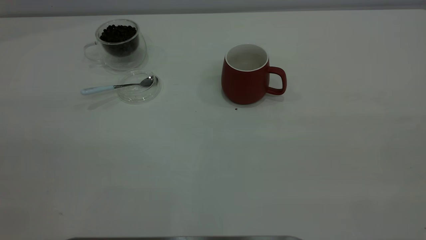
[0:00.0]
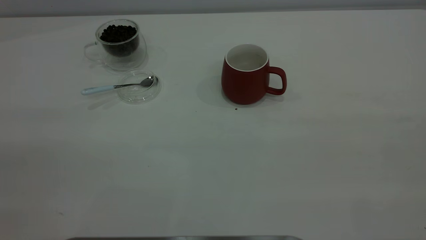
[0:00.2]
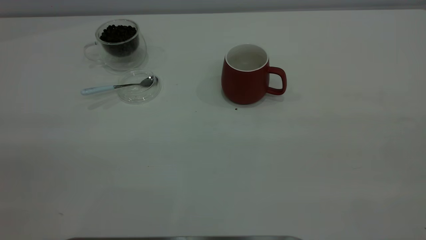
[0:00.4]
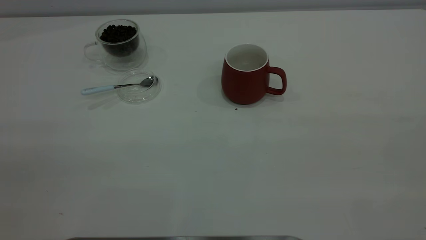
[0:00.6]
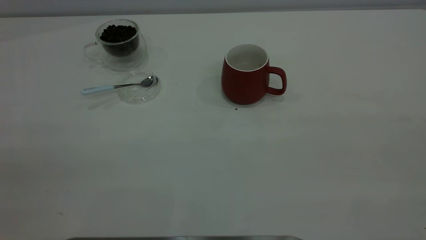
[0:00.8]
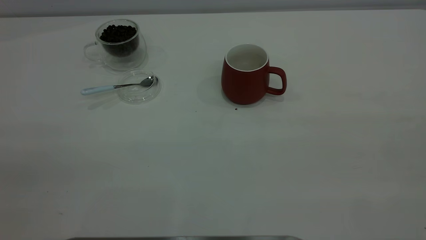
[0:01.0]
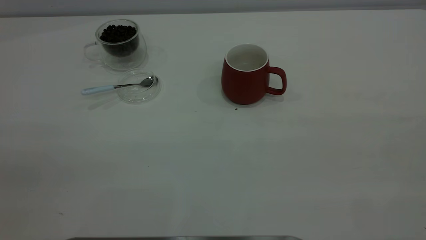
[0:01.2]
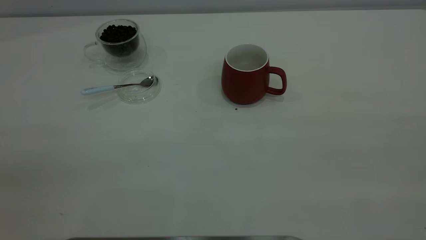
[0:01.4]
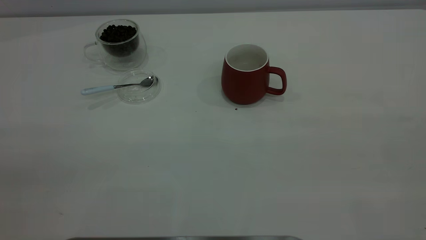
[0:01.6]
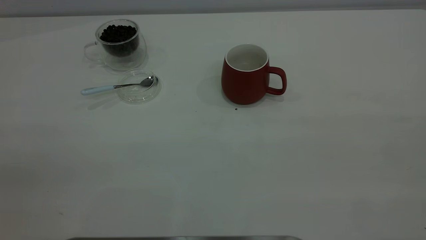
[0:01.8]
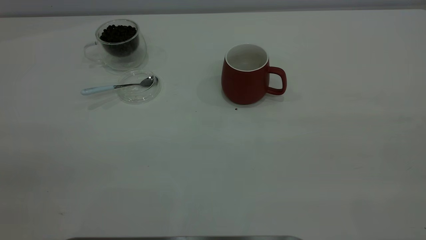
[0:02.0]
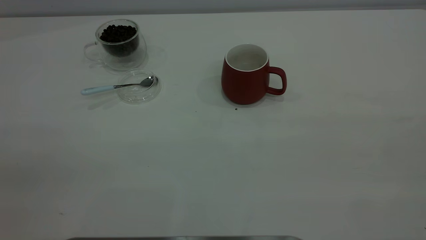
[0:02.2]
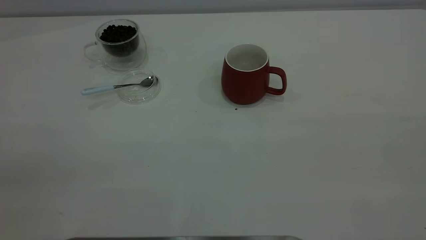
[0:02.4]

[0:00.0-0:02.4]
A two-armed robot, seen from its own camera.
Task of the whole recording: the right gripper place the red cup in the center of the table, the left gripper take the blue spoon from the cup lid and scoop out the coffee beans from the coffee cup and put them into the red cup, the left gripper put the spoon back into the cup lid.
0:01.2 to 0:02.4: Both grippers stay about where they are.

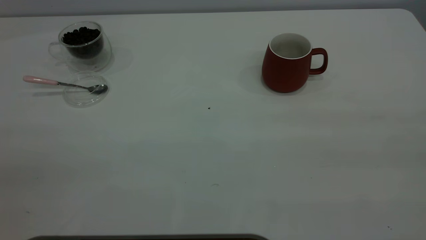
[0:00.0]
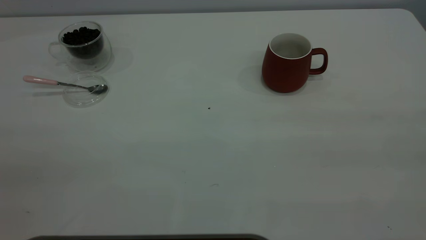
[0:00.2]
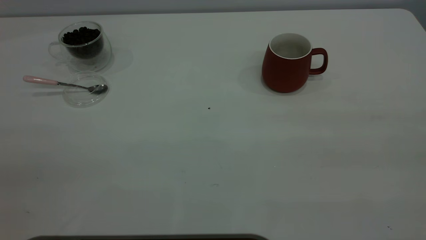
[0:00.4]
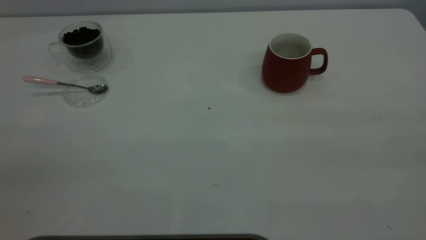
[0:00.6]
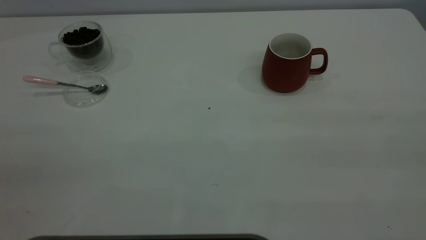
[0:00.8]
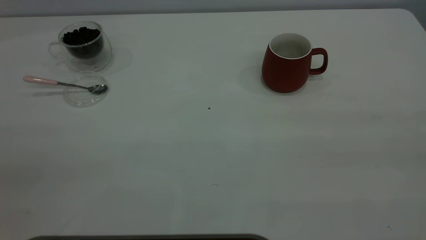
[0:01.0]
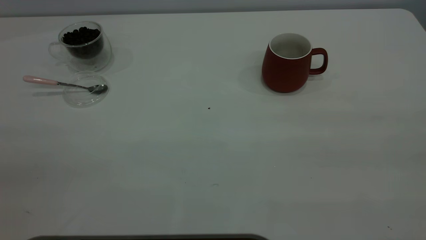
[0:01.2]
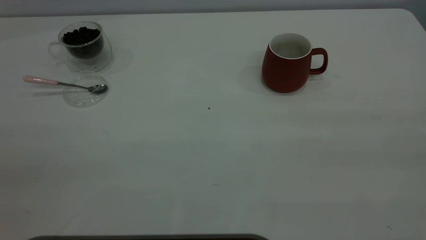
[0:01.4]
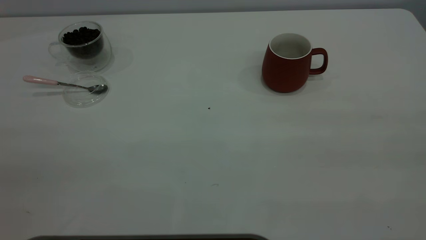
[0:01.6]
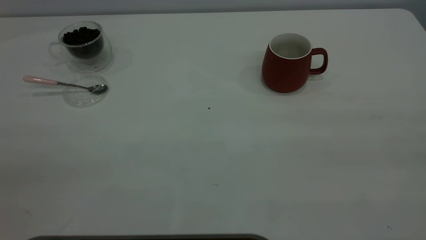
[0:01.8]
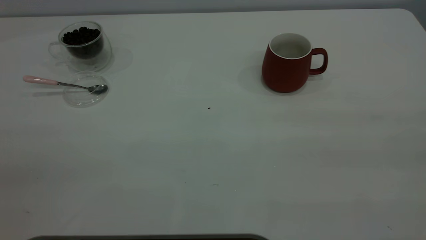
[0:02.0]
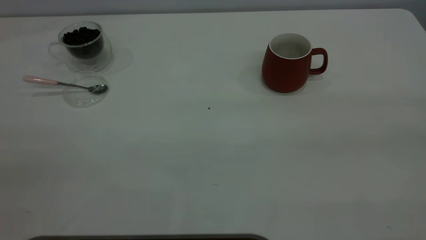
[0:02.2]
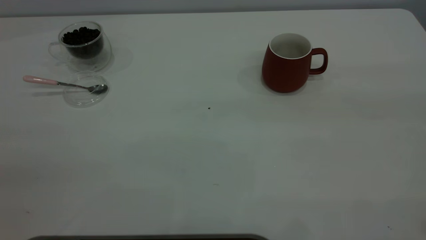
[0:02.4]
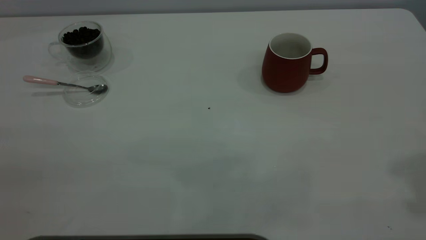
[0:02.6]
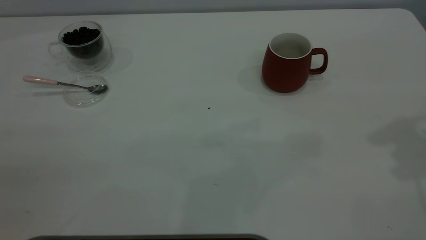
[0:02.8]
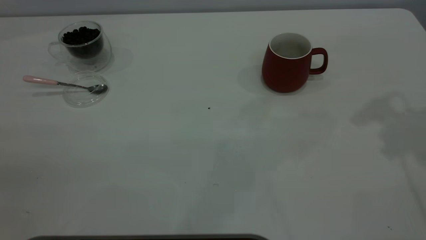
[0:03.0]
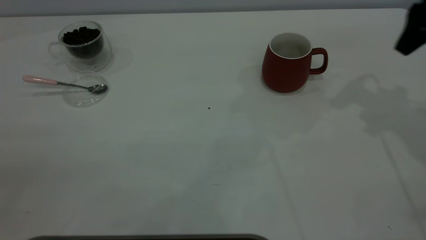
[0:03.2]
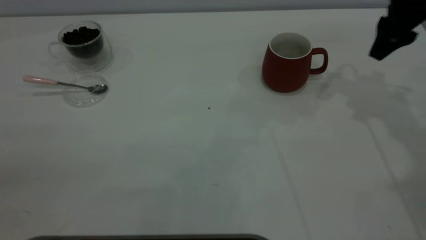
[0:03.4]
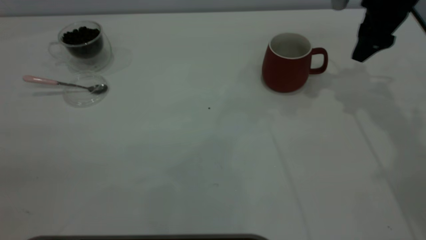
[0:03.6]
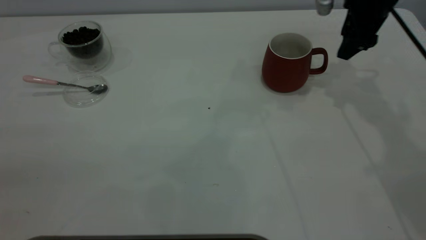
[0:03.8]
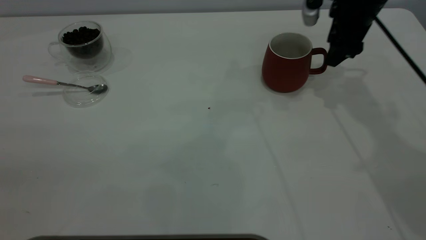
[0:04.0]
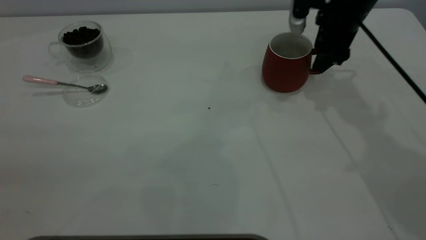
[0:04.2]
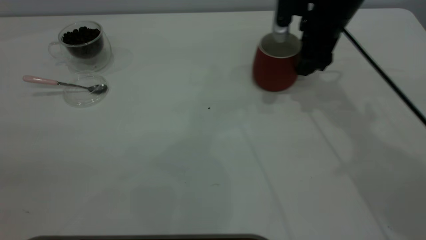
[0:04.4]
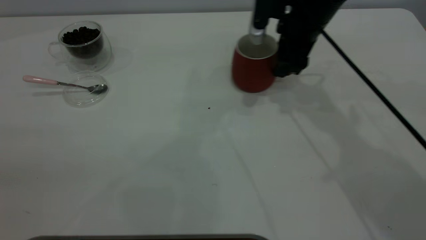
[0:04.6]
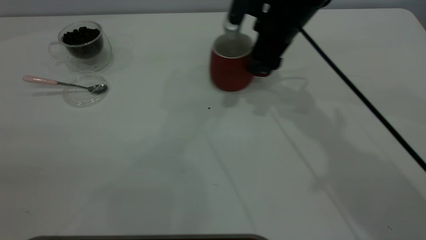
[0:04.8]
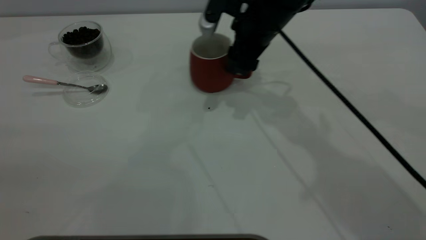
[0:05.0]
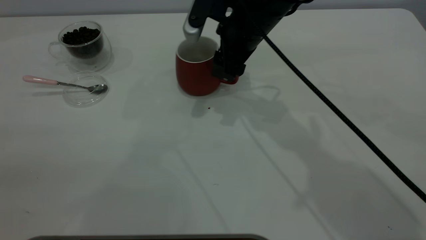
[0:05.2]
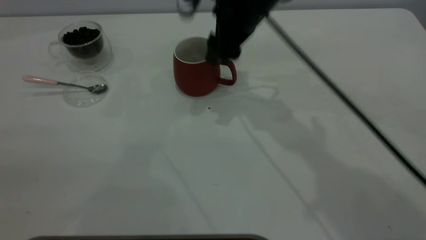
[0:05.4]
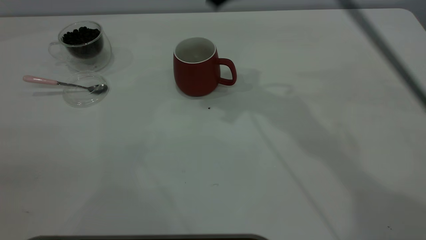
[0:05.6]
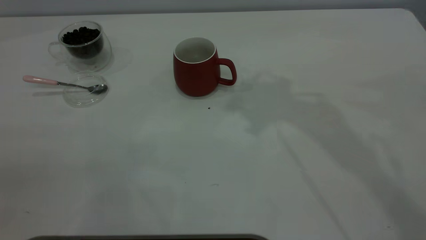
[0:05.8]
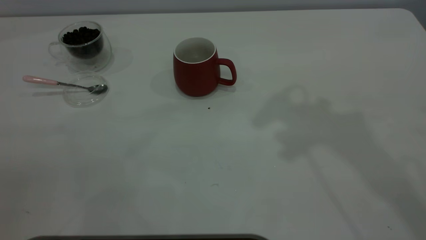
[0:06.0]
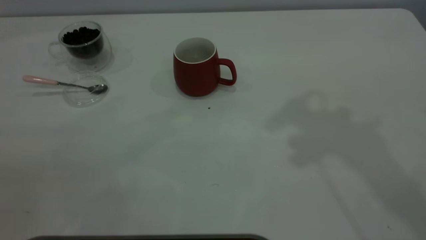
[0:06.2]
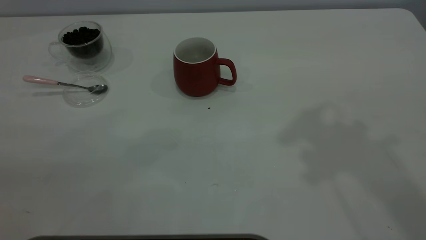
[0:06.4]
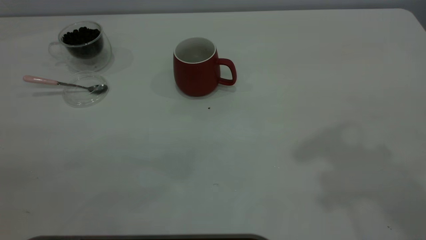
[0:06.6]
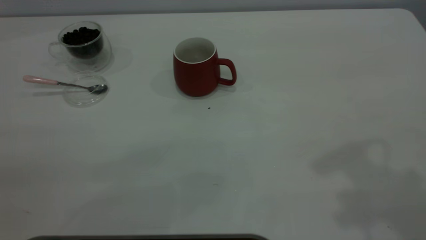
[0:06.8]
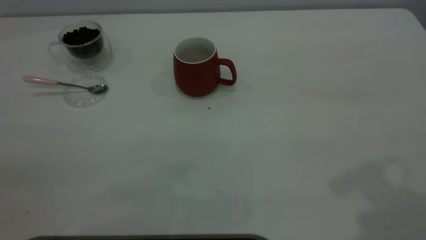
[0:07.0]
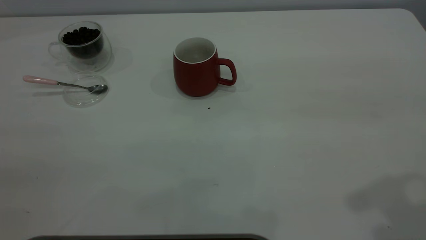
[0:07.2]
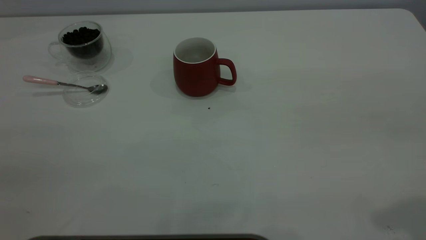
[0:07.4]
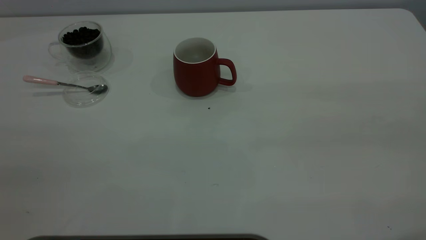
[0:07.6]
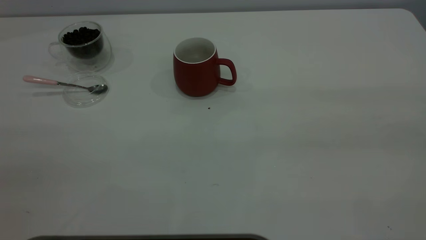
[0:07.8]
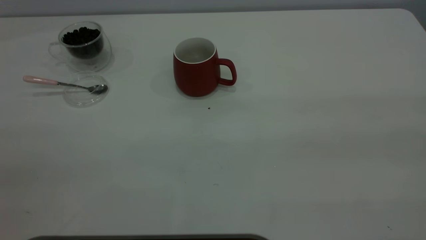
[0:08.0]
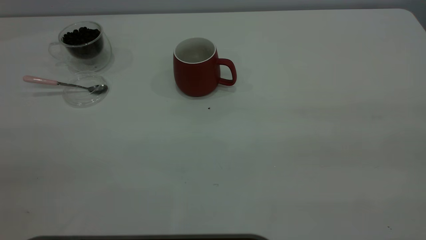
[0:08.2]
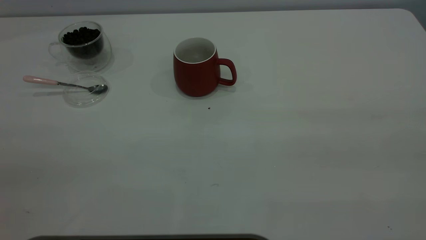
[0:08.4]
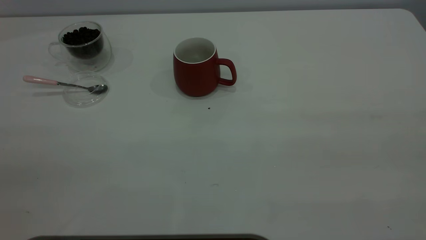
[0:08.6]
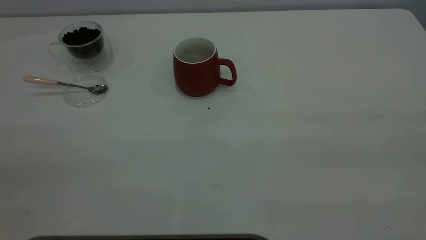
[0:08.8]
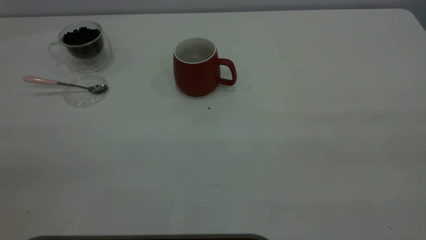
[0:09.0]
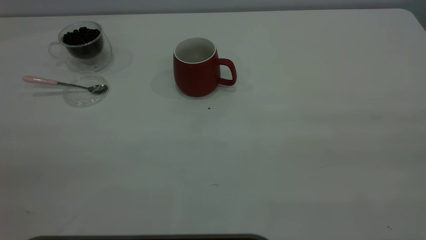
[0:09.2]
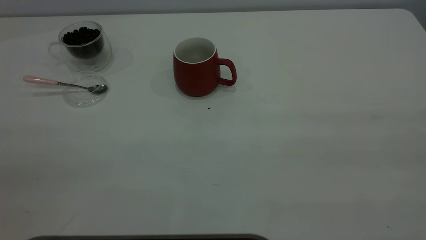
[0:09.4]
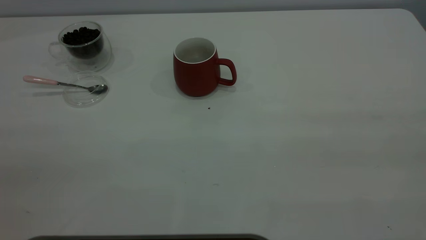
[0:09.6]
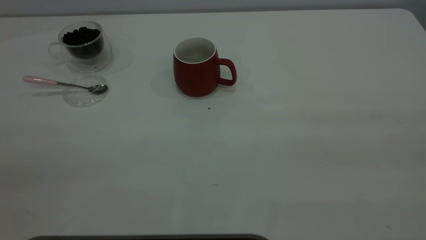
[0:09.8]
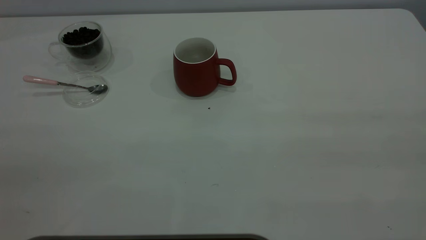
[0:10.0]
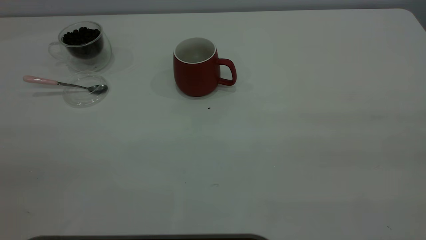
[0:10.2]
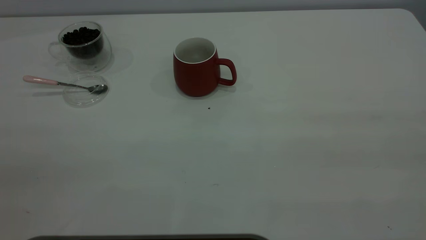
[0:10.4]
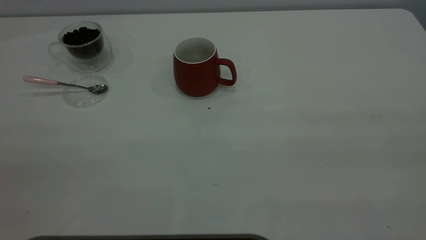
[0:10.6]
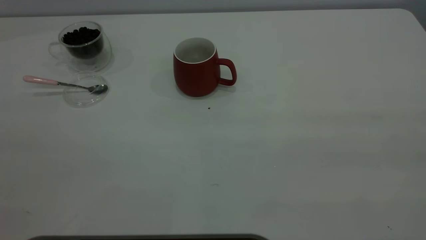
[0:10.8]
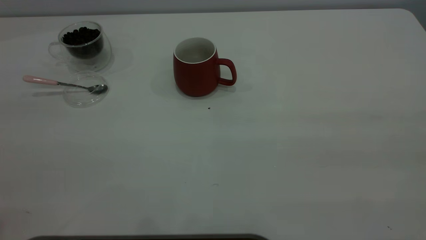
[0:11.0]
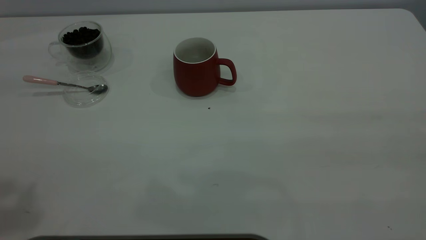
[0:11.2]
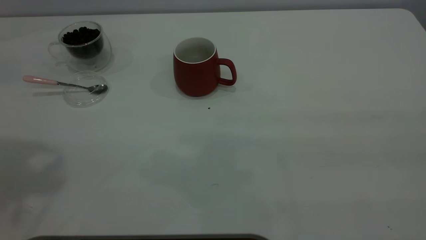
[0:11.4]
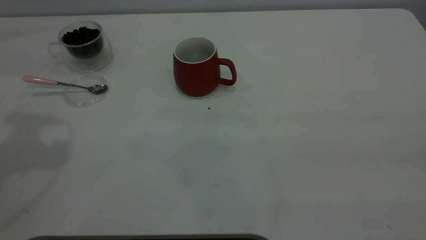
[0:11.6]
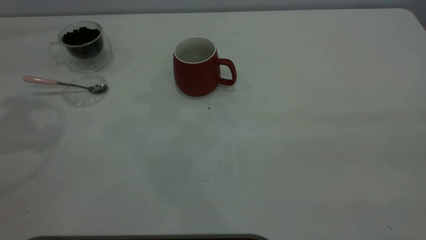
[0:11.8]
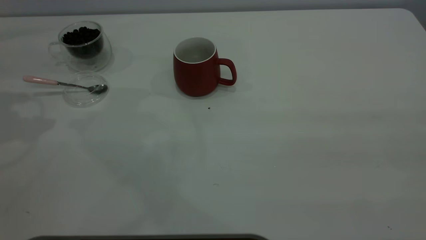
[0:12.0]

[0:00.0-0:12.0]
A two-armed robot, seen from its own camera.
Task of the whole recording: the right gripper place the red cup in the center of the table, the left gripper take the pink spoon from the cup lid and scoop out the coffee beans from the coffee cup and put them into the red cup, the left gripper put the spoon back into the cup lid.
Step, 0:00.0 to 0:05.4: Move the cup to the center of view.
0:00.0 to 0:01.6: Both grippers stay about where they are.
0:03.0 to 0:04.4: The right gripper goes some 25 cm to the left, downward and forward.
0:04.4 to 0:06.0: The right gripper is displaced upward and backward by about 30 cm.
0:09.0 to 0:10.4: Both grippers stay about where they are.

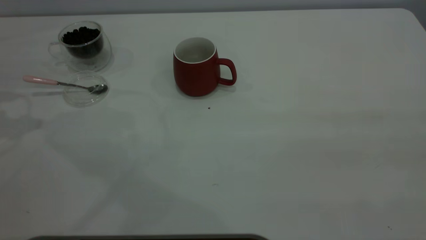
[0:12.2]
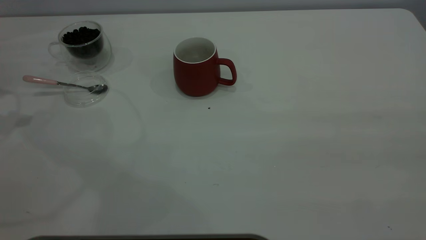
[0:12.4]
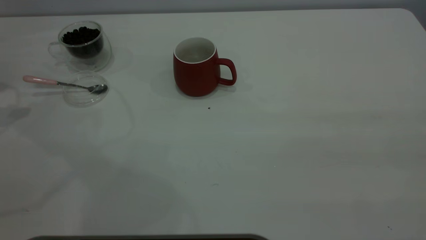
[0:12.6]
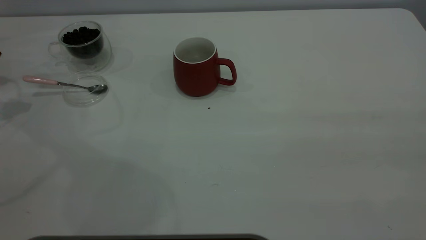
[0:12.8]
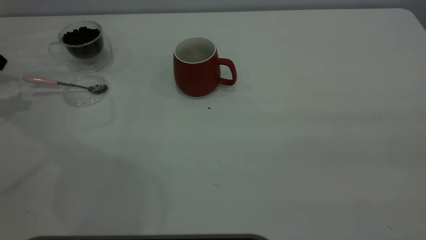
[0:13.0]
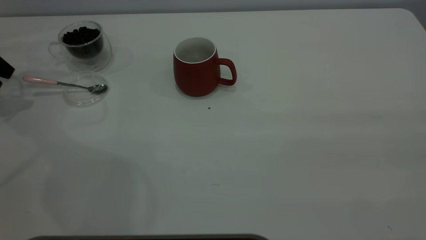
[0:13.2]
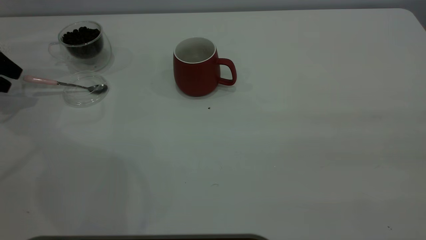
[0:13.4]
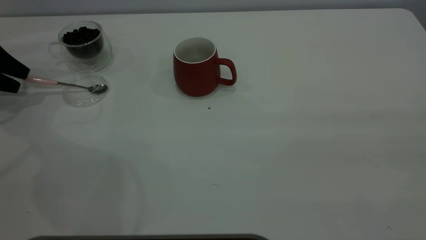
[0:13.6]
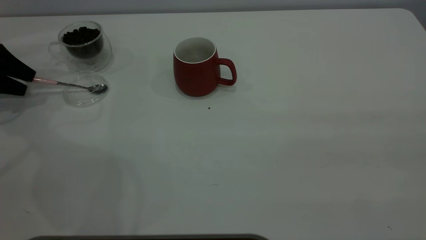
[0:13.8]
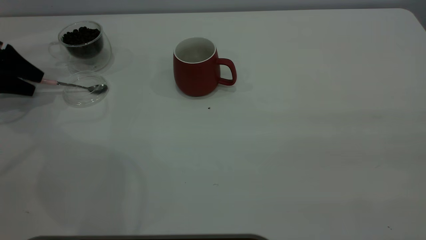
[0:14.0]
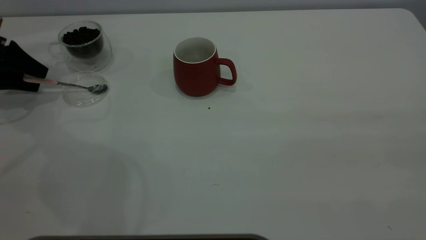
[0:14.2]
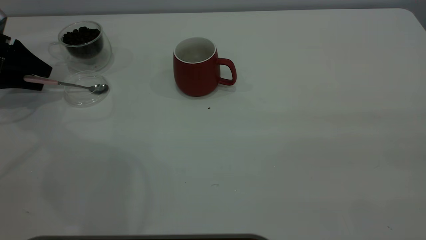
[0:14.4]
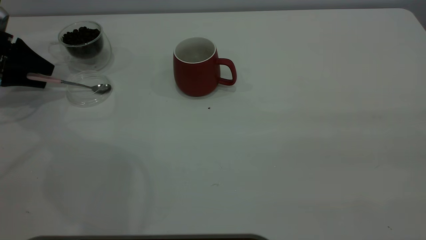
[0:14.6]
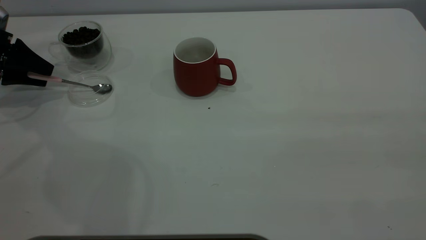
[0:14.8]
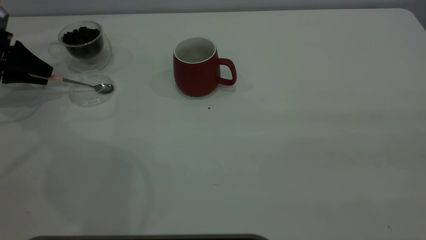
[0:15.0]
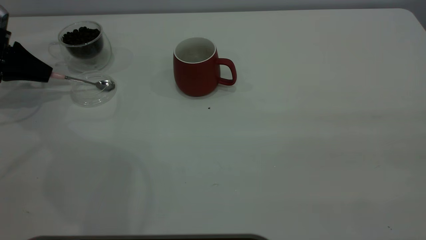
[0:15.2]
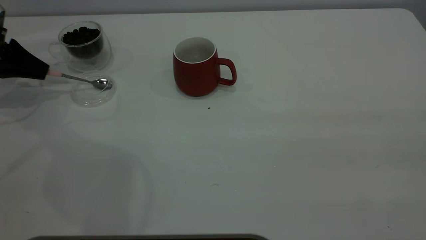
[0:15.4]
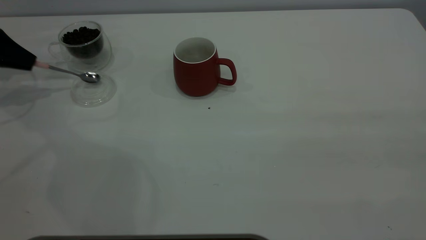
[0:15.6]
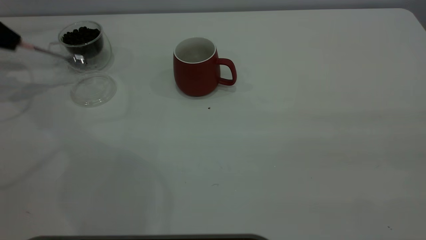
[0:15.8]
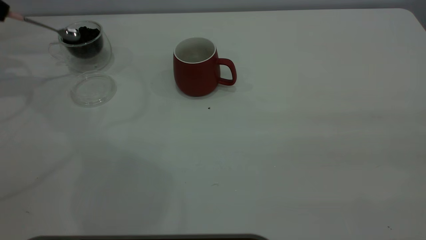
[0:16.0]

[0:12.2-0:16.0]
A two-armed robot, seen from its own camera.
Task of the whole recording: the right gripper place the red cup in the center of the table, the left gripper take the pink spoon from the cup lid and scoop out the coffee beans from the coffee cup and put them into the red cup, the left gripper put the spoon back into the cup lid.
0:12.2 to 0:13.4: The left gripper heads downward, forward and to the left, covering approximately 15 cm.
0:13.4 to 0:14.8: The left gripper closes its fingers.
0:14.8 to 0:16.0: The left gripper heads upward, covering about 15 cm, and closes its fingers.
